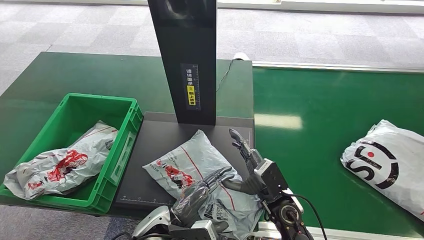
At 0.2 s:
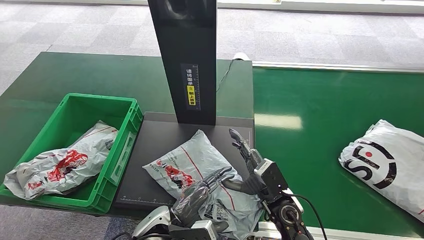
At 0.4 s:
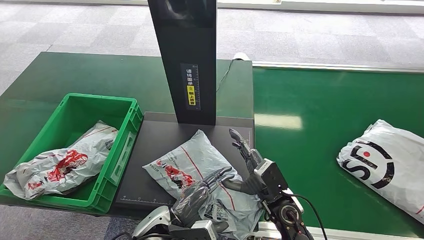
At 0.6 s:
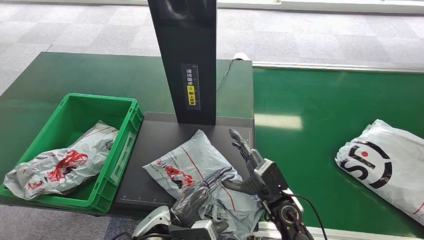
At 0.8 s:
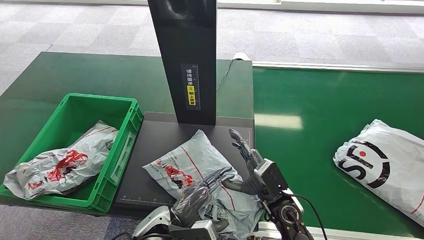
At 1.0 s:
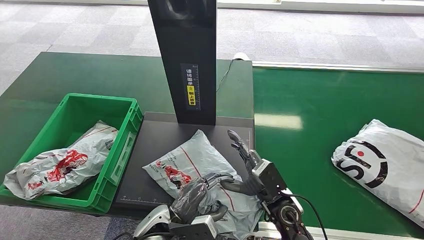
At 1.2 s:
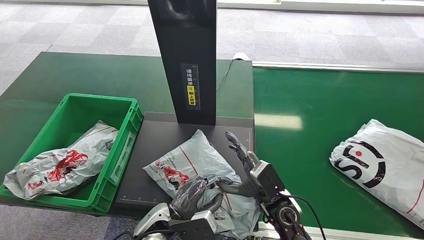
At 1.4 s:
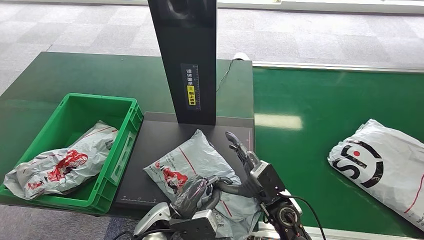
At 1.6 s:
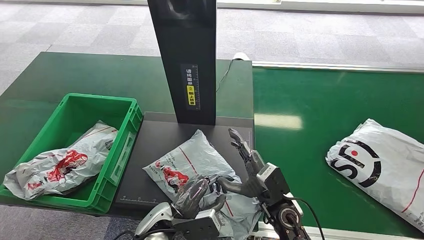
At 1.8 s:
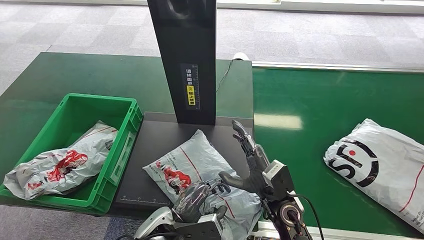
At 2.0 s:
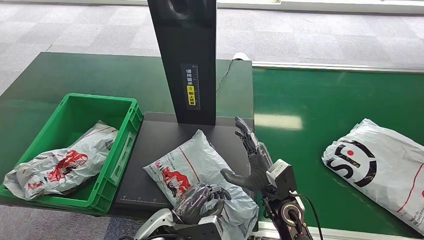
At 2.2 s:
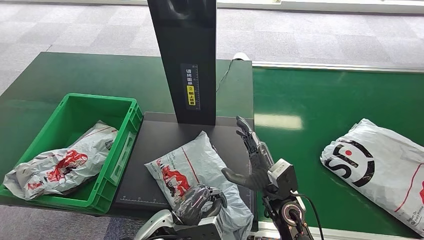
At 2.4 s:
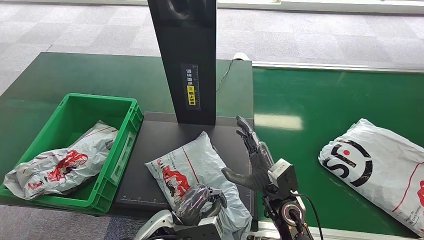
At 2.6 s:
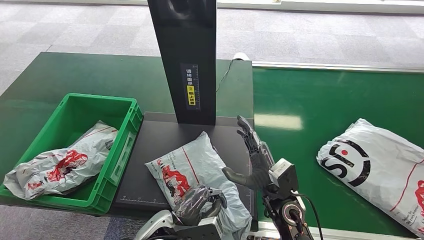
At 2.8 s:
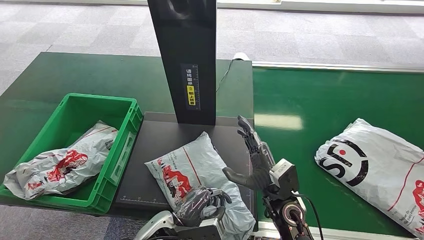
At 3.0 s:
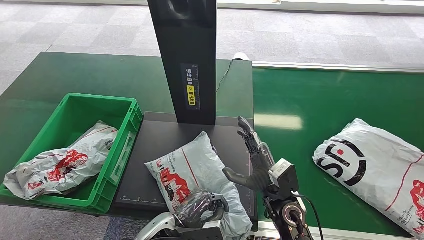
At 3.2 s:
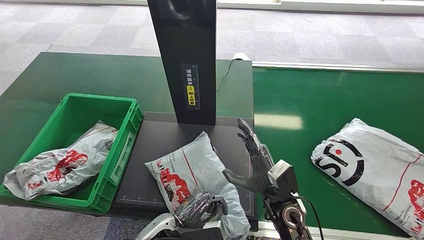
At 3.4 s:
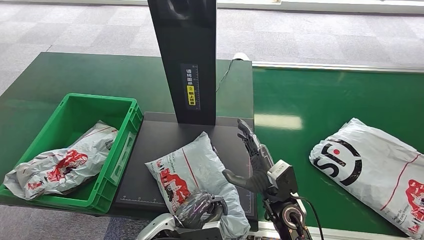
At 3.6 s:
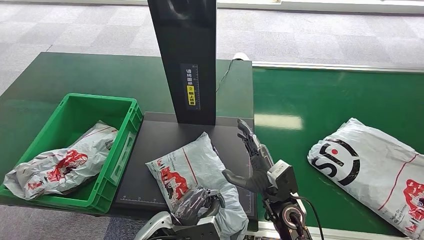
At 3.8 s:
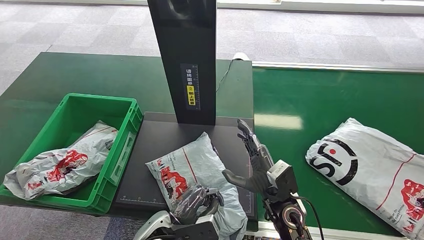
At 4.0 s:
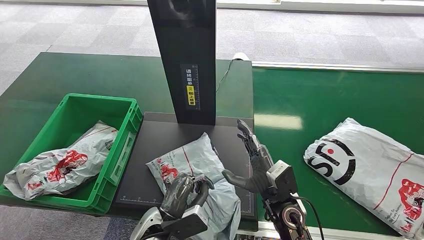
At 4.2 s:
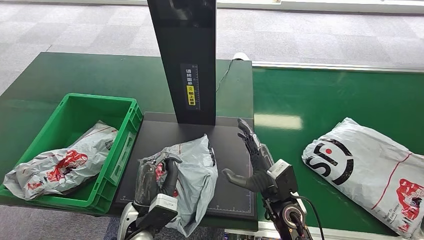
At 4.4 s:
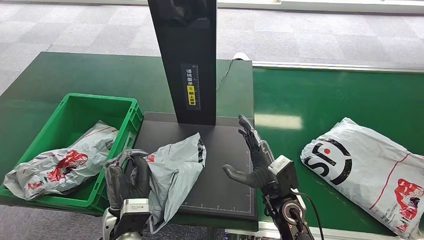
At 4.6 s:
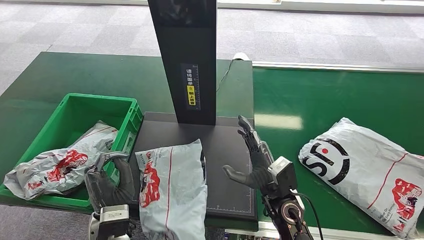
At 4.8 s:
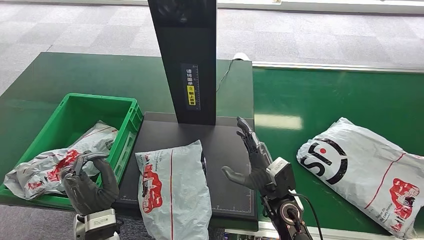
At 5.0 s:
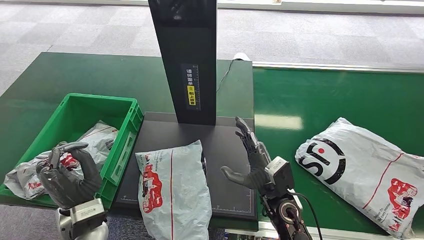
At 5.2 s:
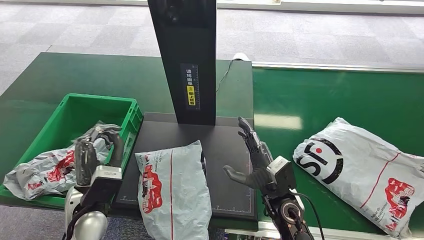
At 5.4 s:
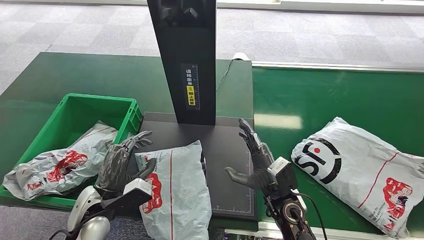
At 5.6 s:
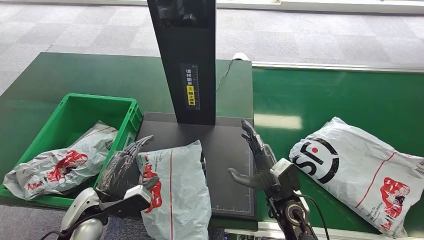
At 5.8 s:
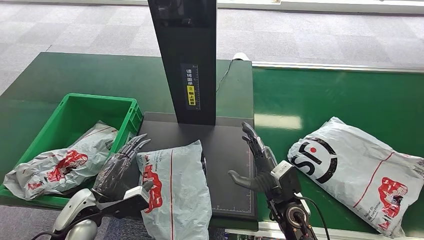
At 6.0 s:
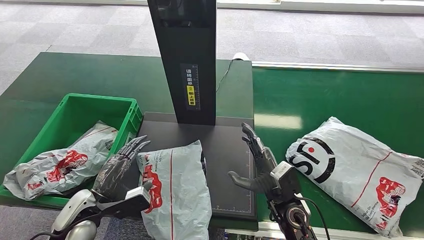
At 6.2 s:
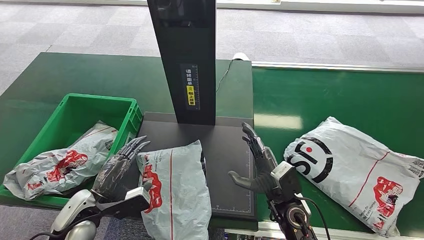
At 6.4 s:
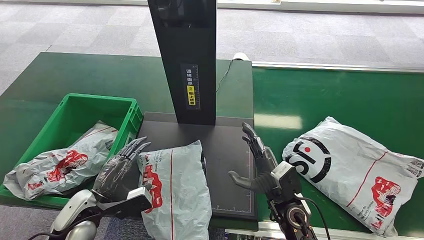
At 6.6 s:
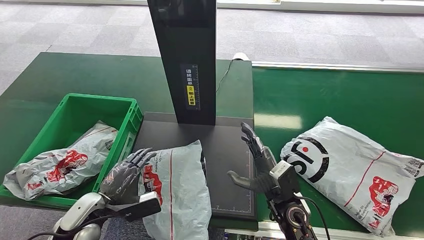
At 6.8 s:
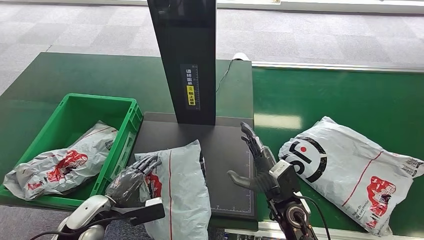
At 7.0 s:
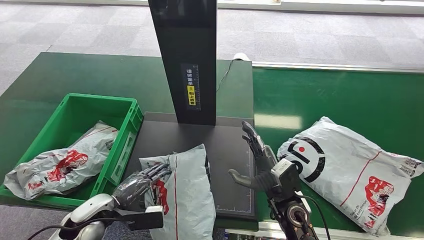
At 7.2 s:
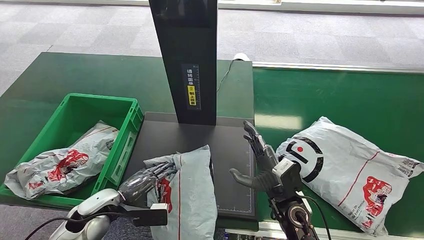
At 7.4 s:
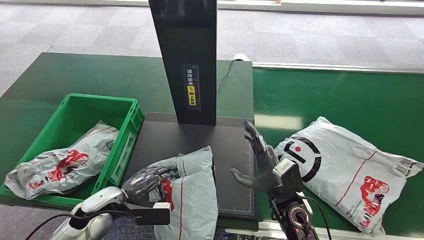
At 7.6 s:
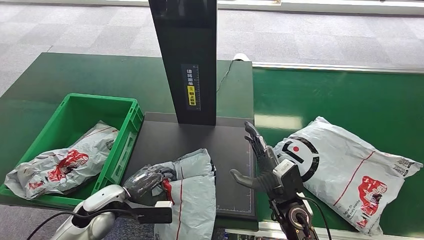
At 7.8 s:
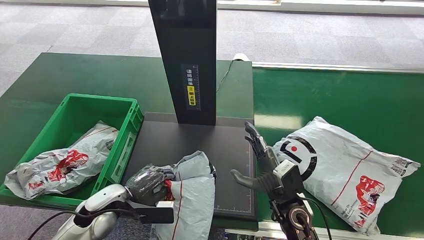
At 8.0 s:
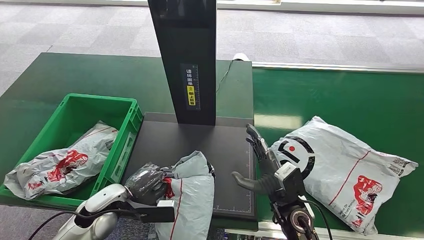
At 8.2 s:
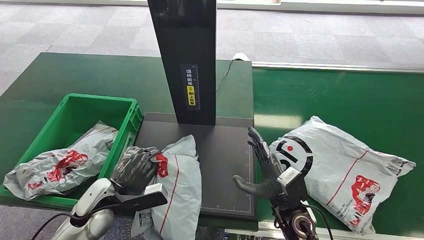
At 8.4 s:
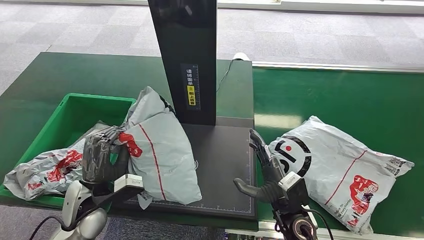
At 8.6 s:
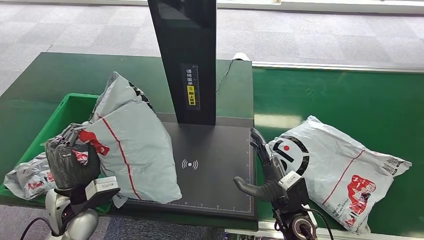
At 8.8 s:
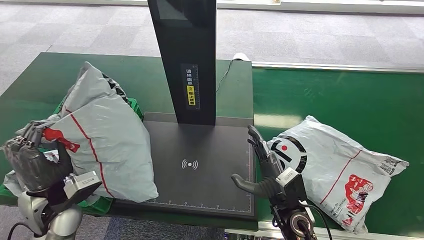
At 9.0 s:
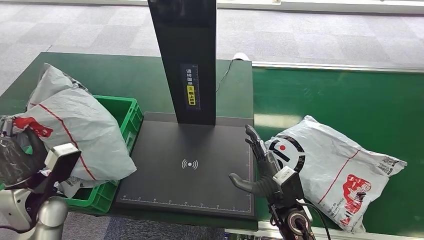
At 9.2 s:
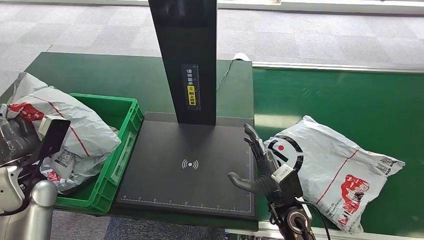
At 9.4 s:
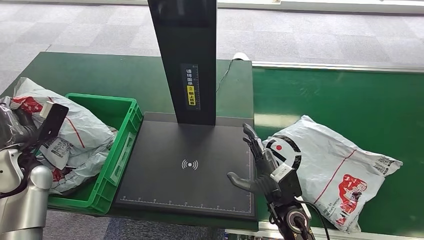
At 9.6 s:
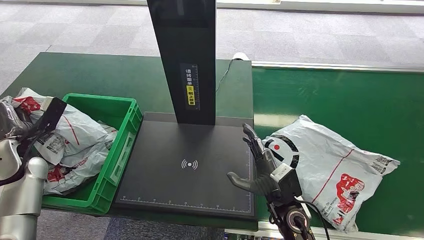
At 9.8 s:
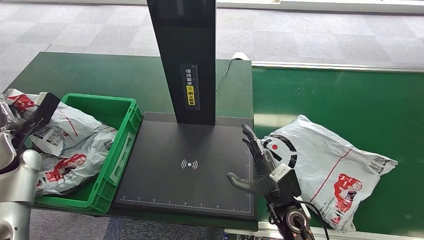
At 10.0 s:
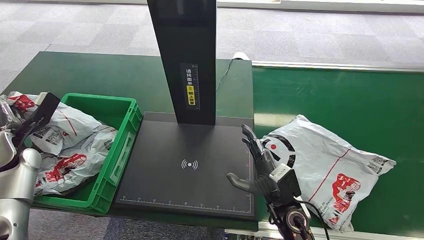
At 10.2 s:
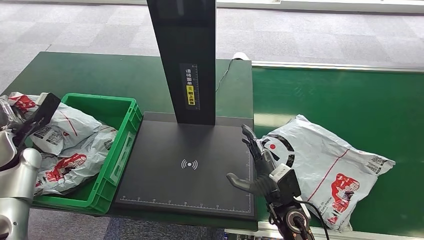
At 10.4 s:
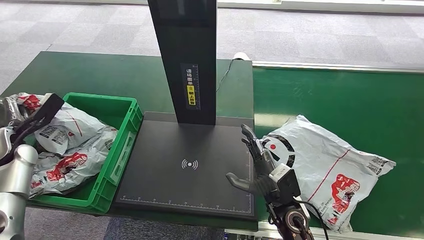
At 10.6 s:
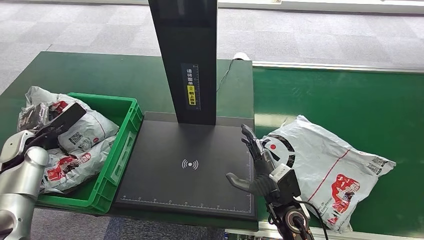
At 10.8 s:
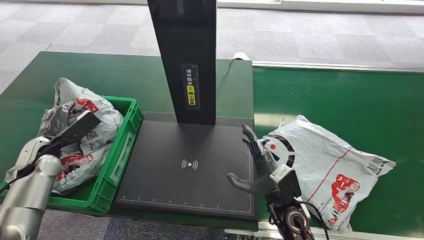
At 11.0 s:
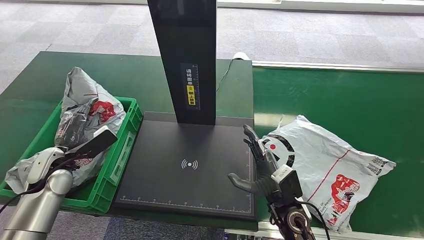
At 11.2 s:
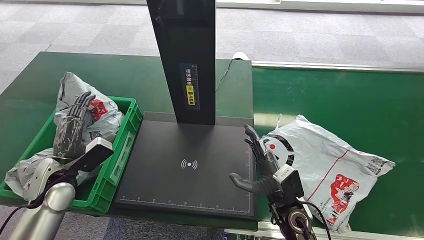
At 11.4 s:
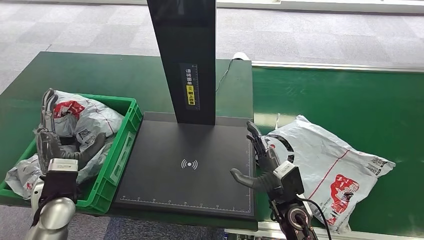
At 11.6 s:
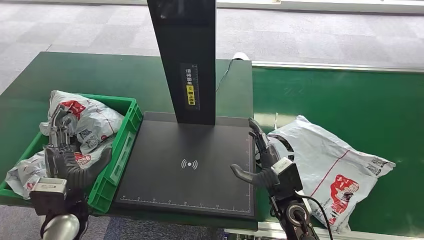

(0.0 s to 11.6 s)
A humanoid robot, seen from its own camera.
0.0 s - 2.8 s: The hands move only a little.
2.8 s - 4.4 s: The left hand shifts roughly 10 cm to the left and upward.
4.4 s - 5.8 s: The left hand heads to the left, covering about 10 cm.
10.2 s - 11.6 s: The left hand heads to the right and backward, covering about 25 cm.
